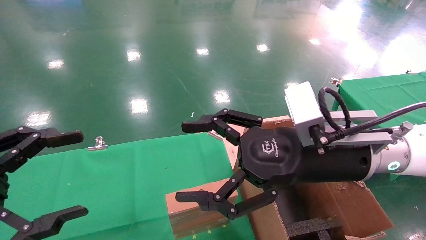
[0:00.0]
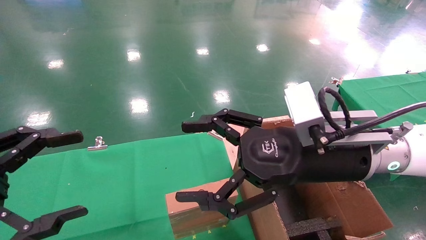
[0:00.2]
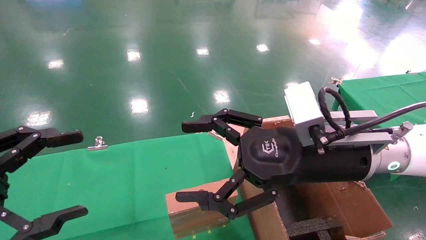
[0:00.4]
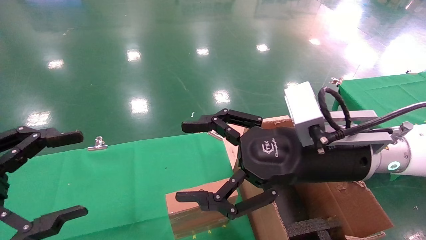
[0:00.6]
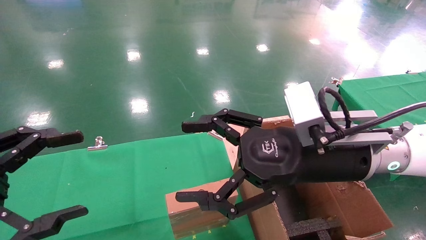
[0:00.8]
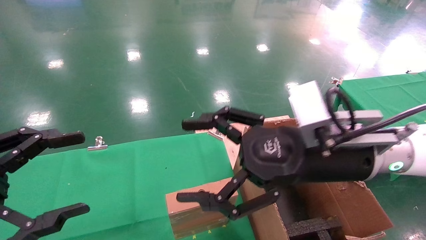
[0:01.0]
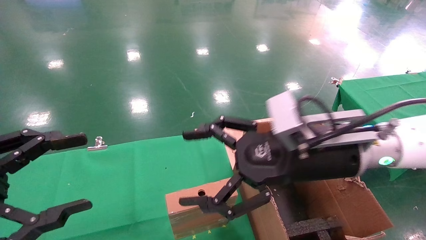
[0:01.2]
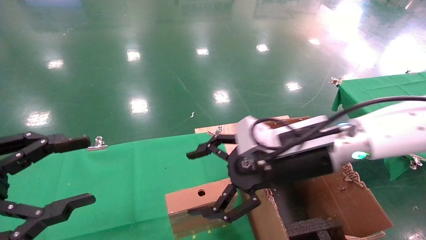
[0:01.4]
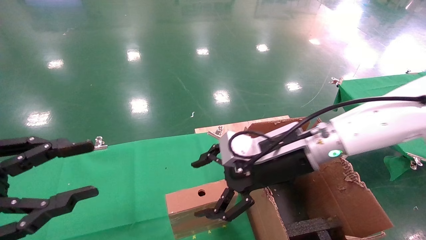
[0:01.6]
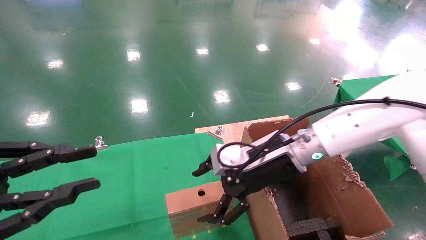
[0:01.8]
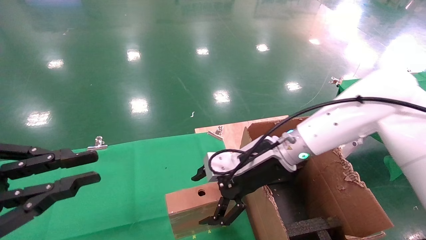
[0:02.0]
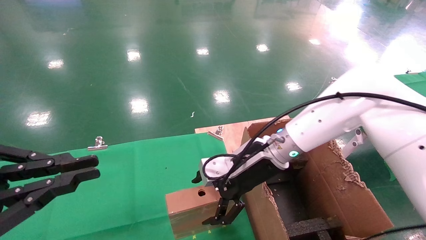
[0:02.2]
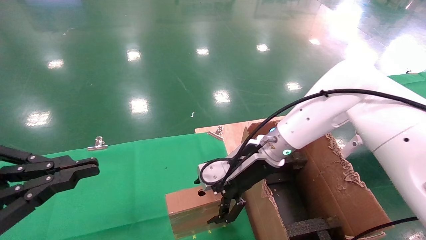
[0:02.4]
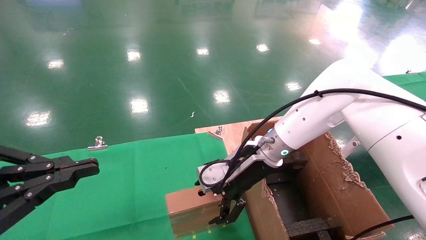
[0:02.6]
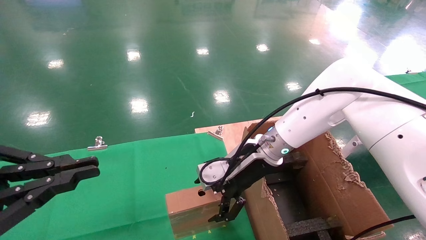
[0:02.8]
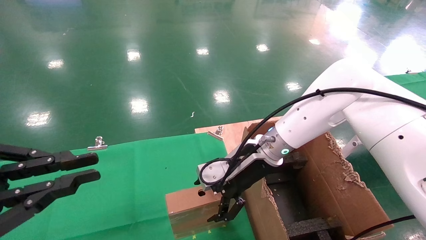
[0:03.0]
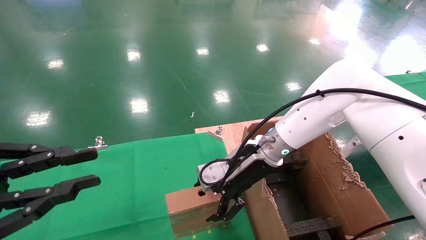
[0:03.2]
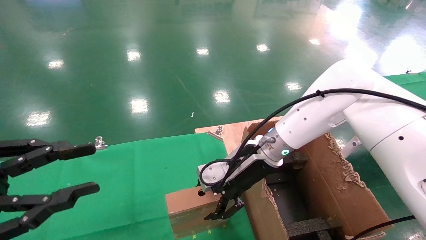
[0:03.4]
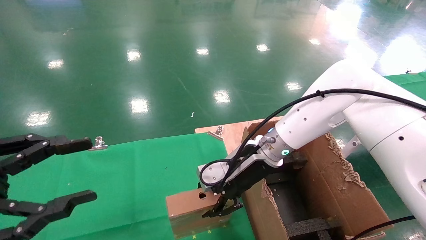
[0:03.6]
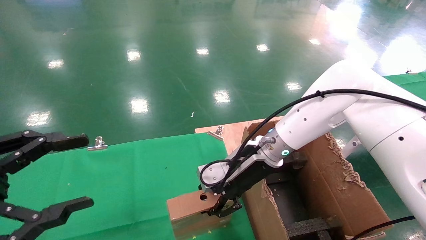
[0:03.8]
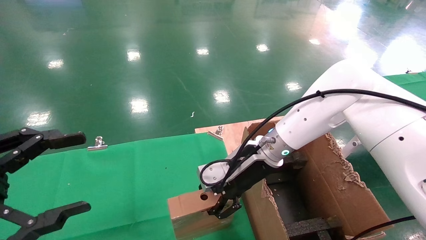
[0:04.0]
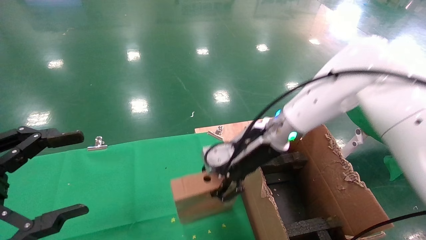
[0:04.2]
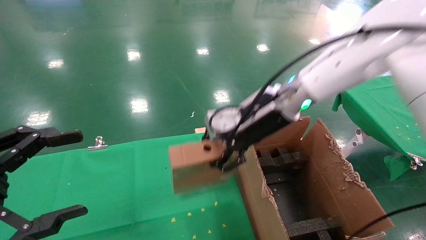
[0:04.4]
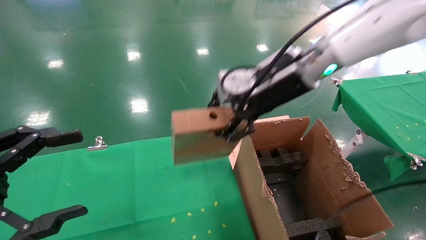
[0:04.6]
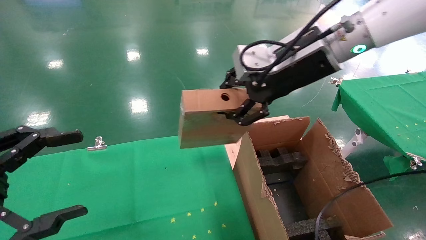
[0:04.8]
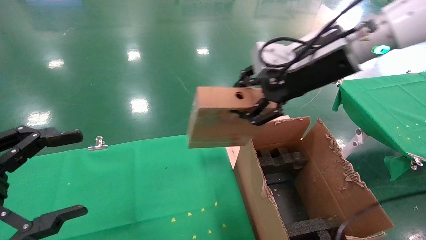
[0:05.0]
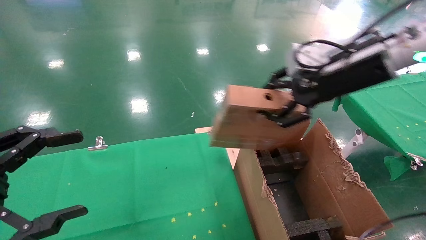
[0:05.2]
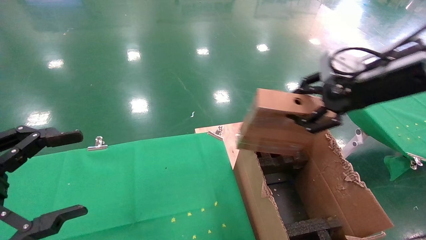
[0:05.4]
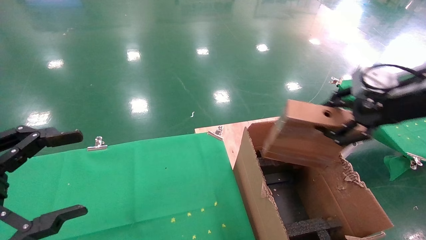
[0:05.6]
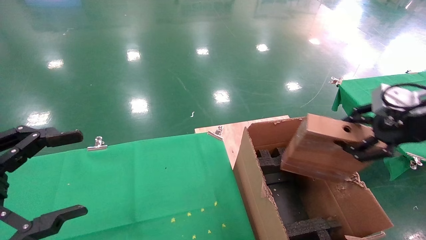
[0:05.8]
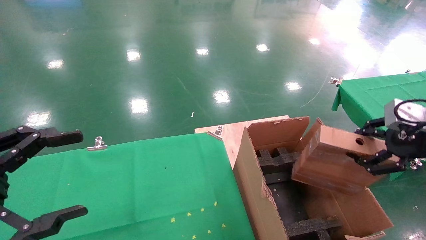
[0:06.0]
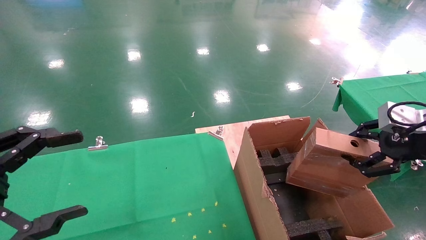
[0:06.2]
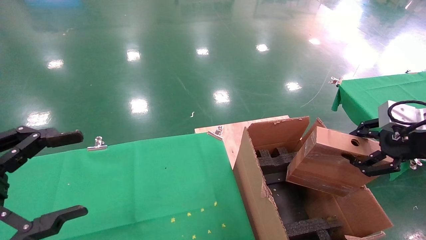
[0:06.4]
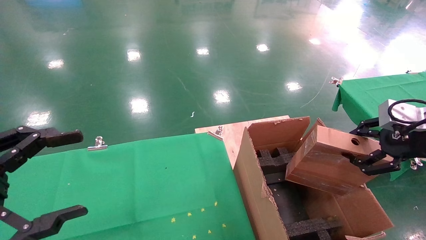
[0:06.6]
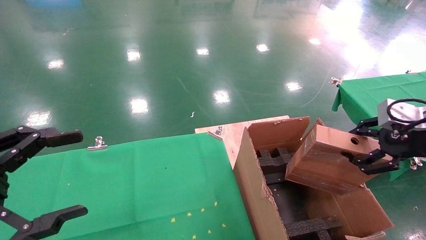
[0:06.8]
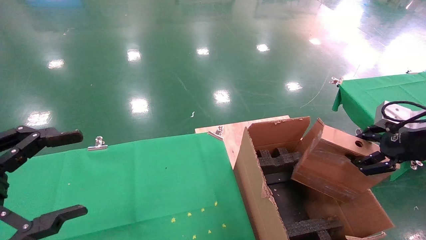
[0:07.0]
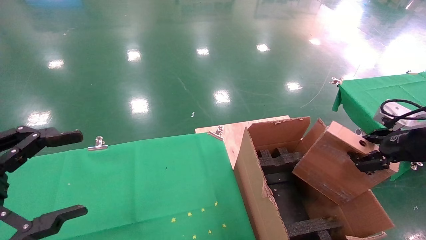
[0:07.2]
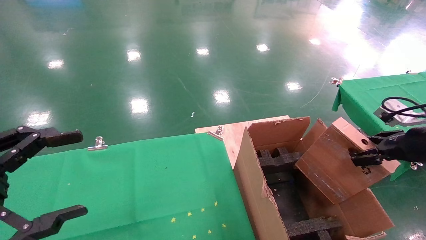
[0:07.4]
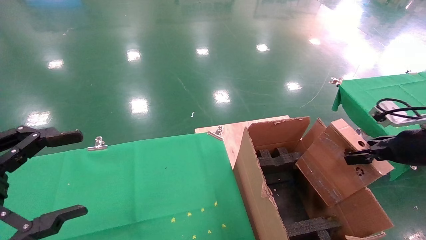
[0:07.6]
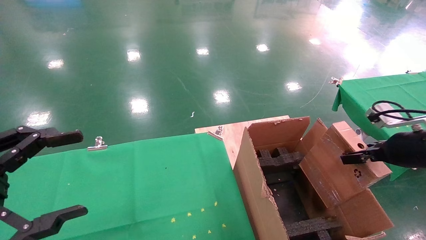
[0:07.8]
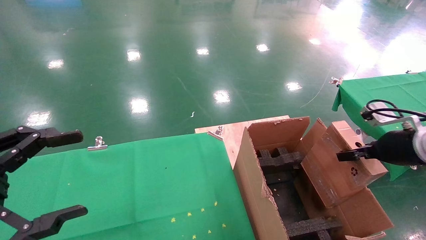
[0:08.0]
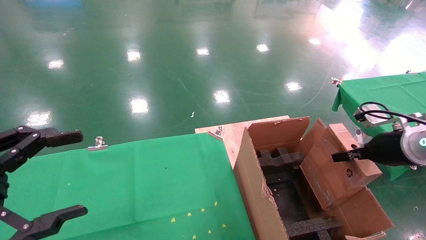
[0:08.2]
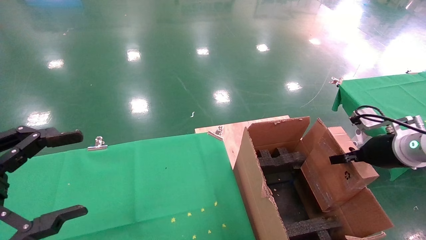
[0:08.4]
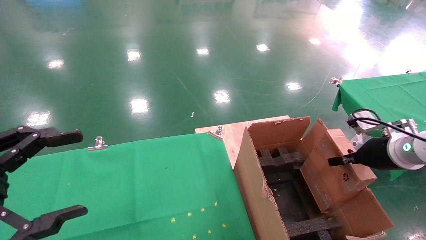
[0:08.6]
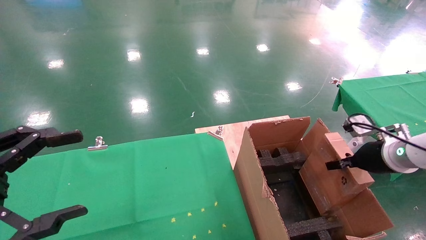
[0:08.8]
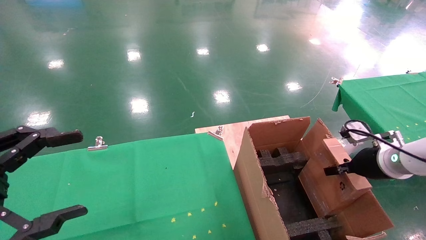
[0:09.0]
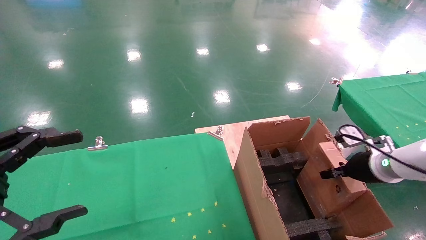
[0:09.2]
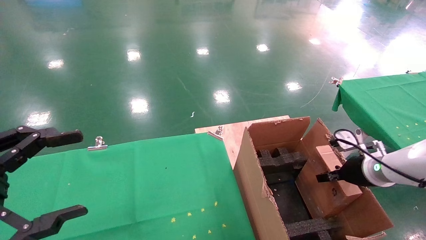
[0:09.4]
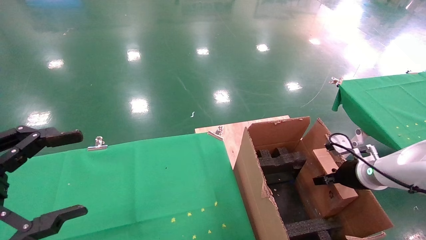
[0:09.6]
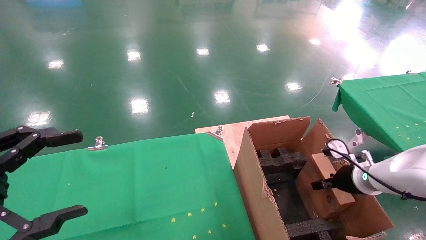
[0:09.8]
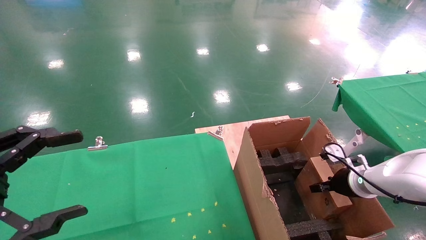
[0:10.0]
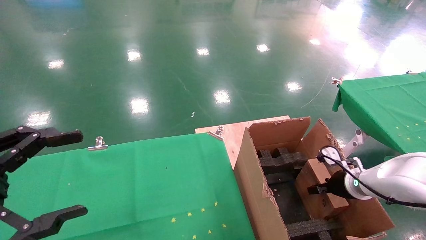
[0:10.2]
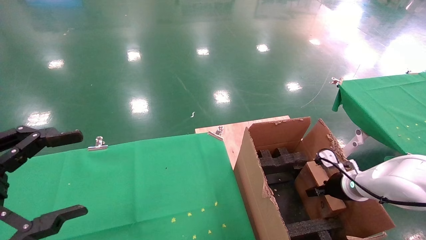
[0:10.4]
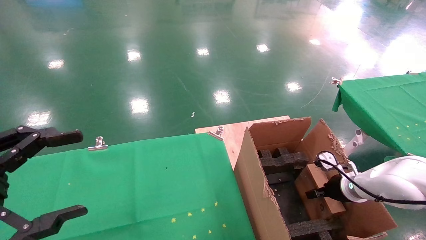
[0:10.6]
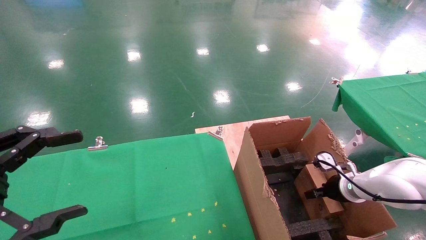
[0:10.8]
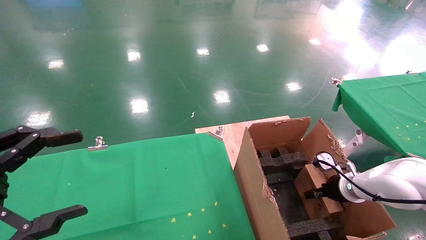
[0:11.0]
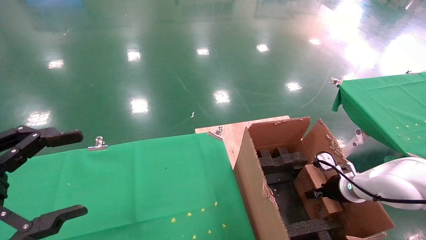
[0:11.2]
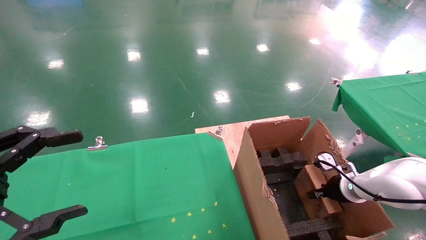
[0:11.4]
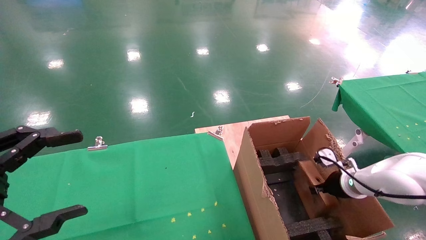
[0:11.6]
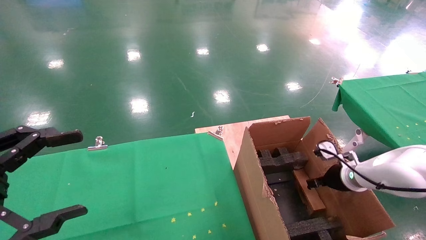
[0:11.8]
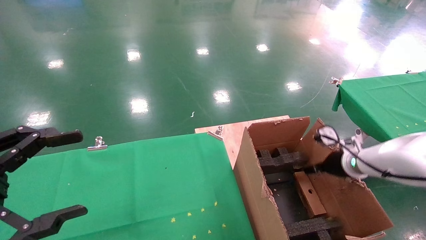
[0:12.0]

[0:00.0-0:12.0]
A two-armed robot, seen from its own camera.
Task of the whole recording: using a robotic arm to pick up a cardboard box and palace it the carton.
Step, 0:01.2 to 0:03.8: Pick up the mouse and the power cord paper box.
0:00.0 to 0:01.6: The right gripper heads forward, covering some 10 cm. The left gripper closes.
0:01.6 to 0:03.0: The right gripper heads forward, covering some 5 cm; the left gripper closes.
0:03.0 to 0:04.4: The left gripper opens its fingers. The right gripper is displaced upward by about 10 cm, and closes.
0:04.4 to 0:06.0: The right gripper shifts roughly 30 cm to the right and backward.
0:06.0 to 0:07.6: The right gripper goes some 5 cm downward.
0:07.6 to 0:09.0: The right gripper travels downward and forward by roughly 10 cm.
0:09.0 to 0:10.4: The right gripper is displaced downward by approximately 10 cm.
0:10.4 to 0:12.0: The right gripper travels upward by some 10 cm, and opens up.

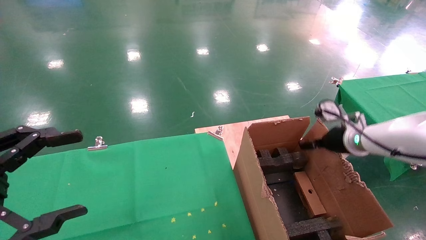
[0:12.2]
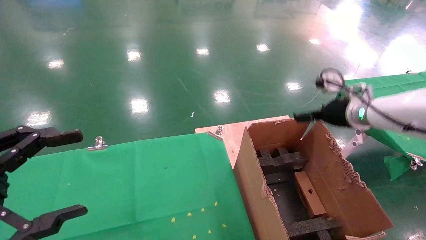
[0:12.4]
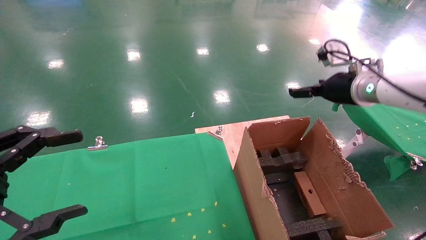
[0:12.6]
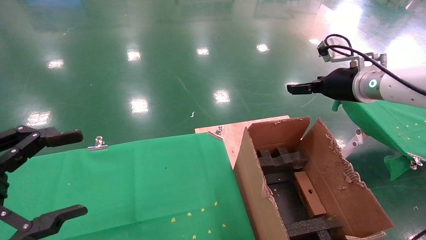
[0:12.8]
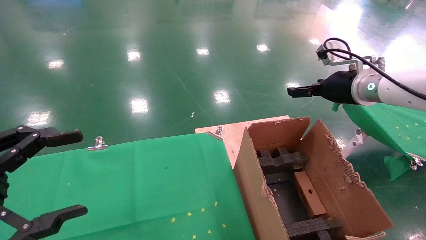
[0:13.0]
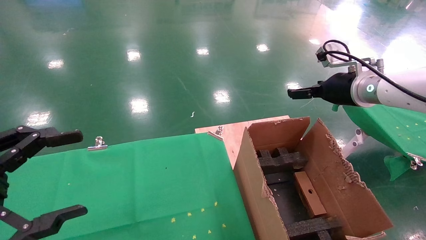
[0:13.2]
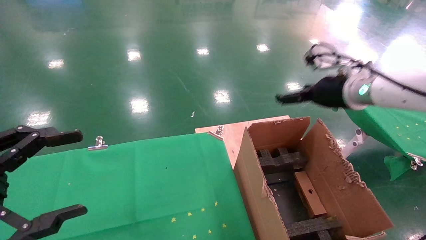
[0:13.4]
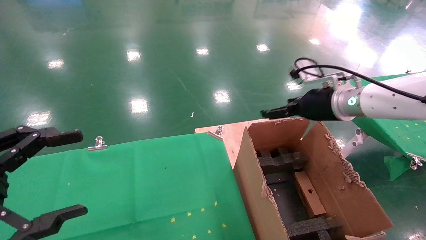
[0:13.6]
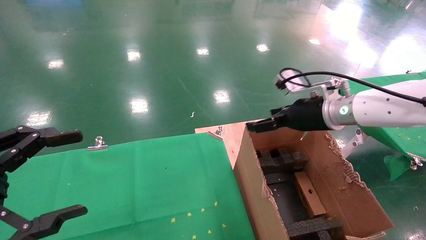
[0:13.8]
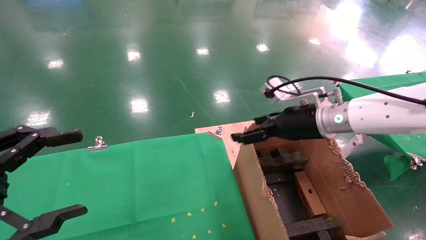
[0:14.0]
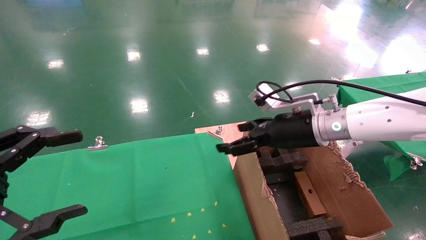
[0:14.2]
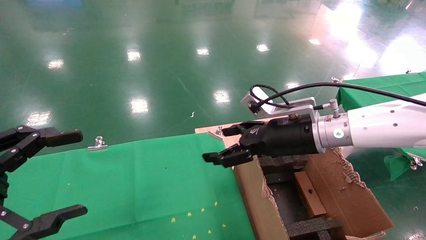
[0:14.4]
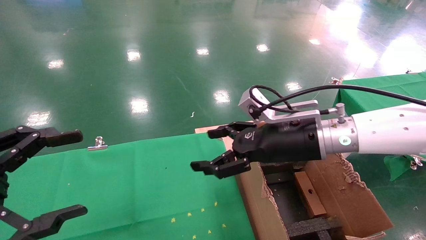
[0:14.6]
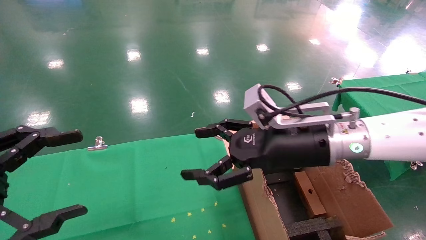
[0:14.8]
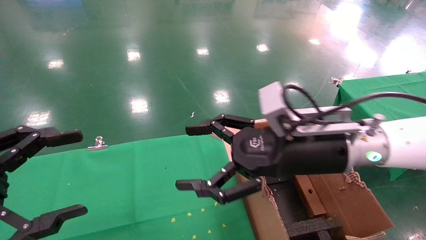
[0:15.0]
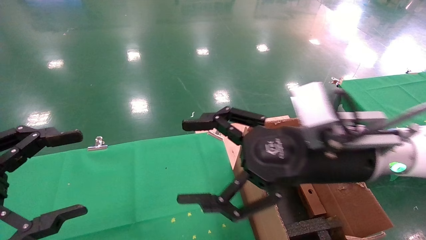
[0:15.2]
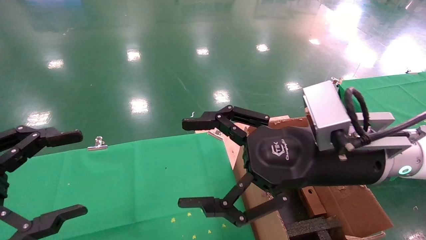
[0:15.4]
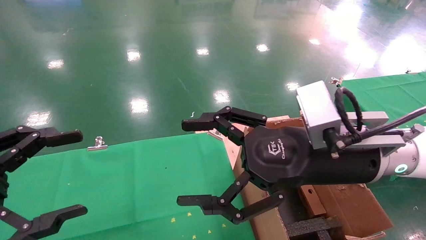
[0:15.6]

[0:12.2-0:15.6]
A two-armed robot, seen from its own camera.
Task of the whole recording: using a robotic arm to pick up a cardboard box and palace it the carton.
0:12.2 to 0:13.8: The right gripper travels to the left and upward by about 15 cm.
0:13.8 to 0:15.6: The right gripper is displaced backward and to the left by about 15 cm.

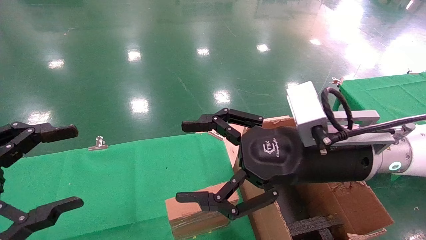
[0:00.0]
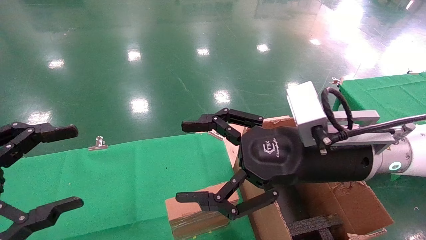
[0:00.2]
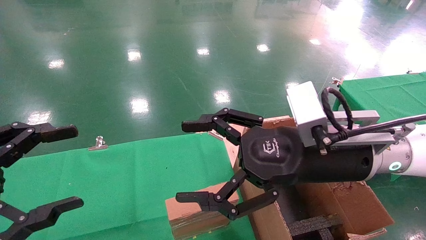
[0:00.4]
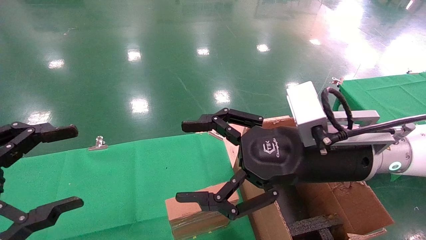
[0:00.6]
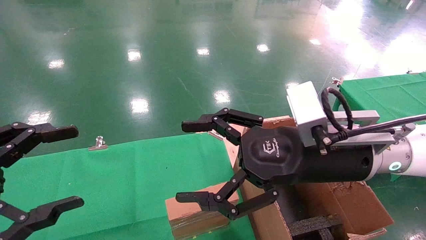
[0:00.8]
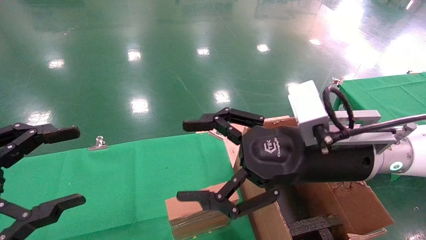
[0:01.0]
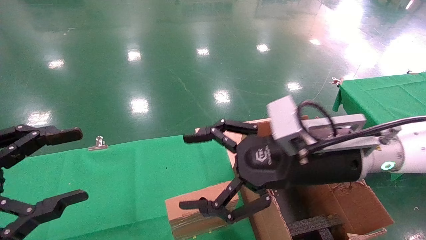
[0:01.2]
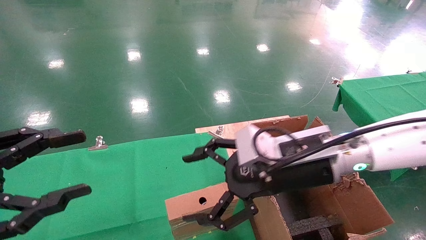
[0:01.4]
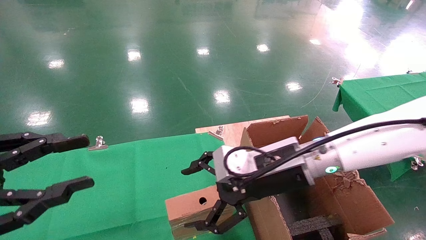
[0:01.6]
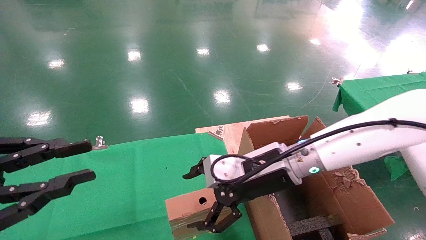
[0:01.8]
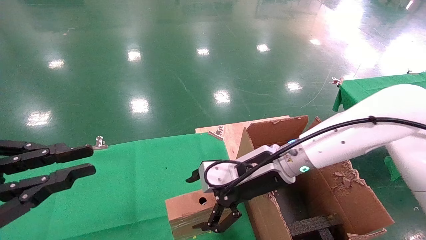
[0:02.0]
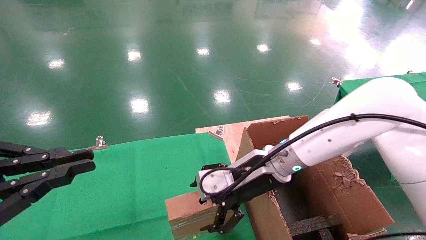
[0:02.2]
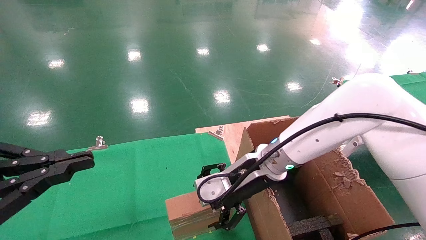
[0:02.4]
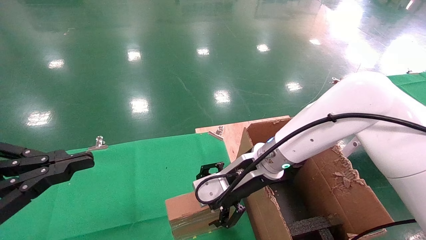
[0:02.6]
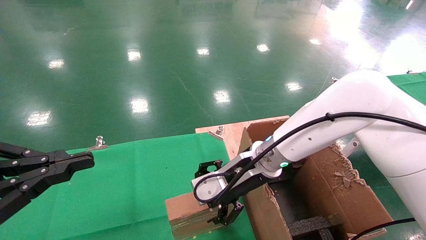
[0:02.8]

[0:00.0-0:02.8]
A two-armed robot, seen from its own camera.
Task of the whole recording: using a robotic arm to pick up a cardboard box and palace it the carton.
0:00.0 to 0:01.4: The right gripper shifts by approximately 5 cm.
0:01.4 to 0:02.8: The right gripper travels forward and to the left by approximately 10 cm, while the left gripper closes its fingers.
